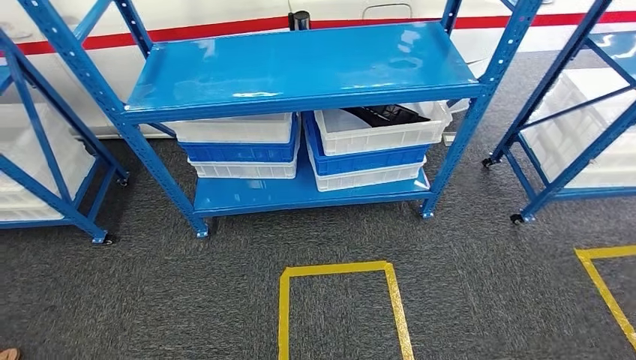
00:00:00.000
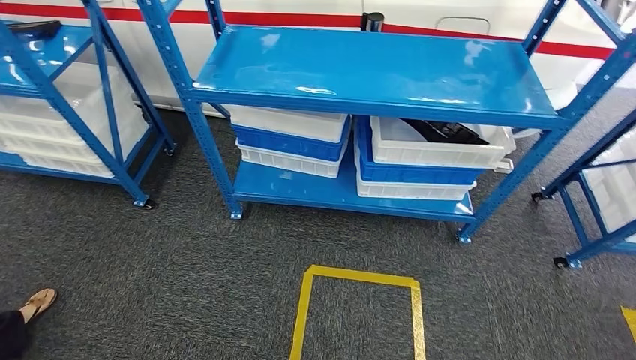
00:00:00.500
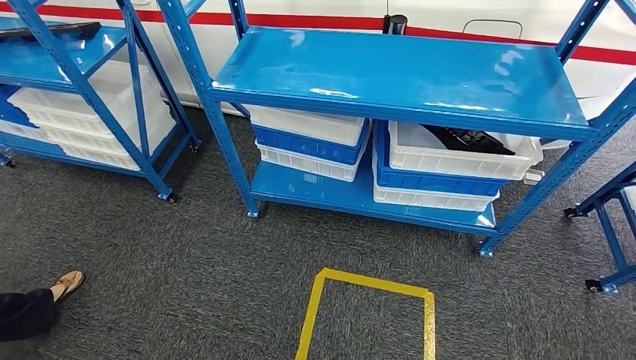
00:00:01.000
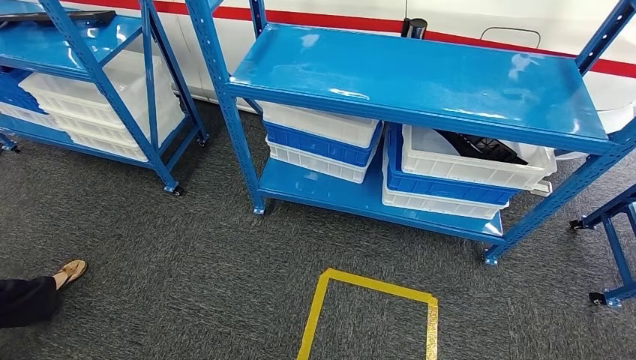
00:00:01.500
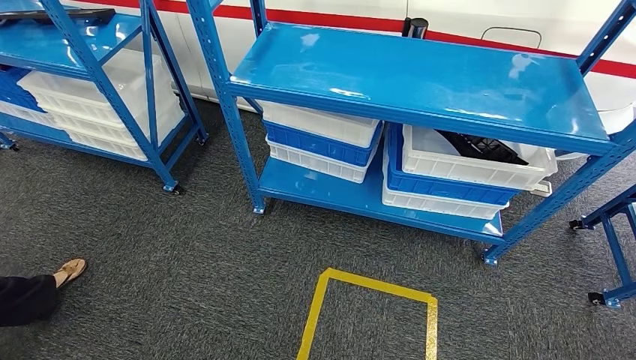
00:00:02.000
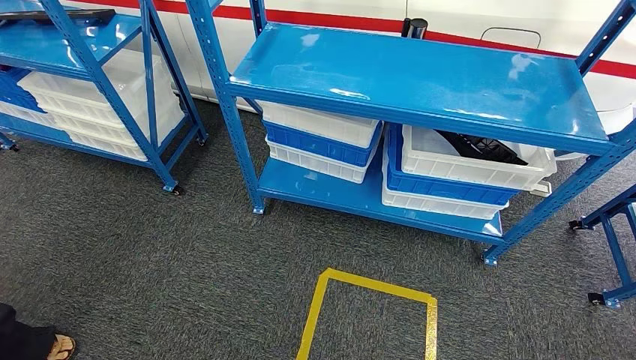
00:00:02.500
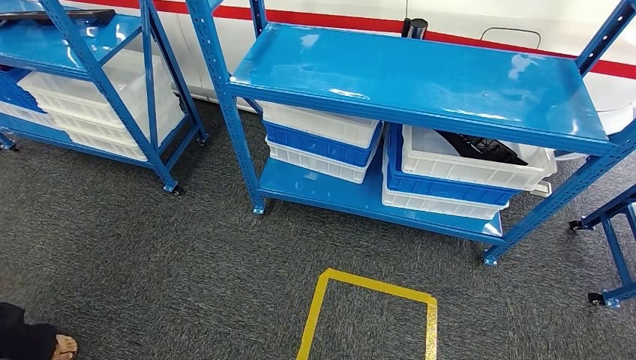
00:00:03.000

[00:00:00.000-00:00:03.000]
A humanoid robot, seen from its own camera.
Step, 00:00:00.000 to 00:00:03.000: Return to the initial position at the shelf.
00:00:01.500 to 00:00:03.000: The left hand shifts about 5 cm to the left. The right hand is displaced to the right and backward by about 10 cm.
